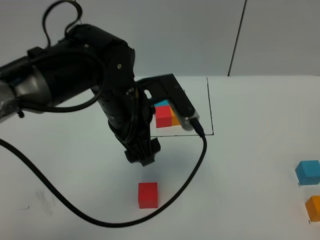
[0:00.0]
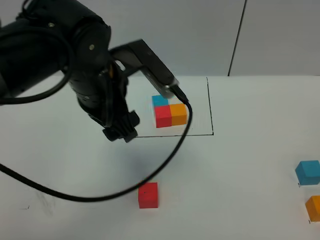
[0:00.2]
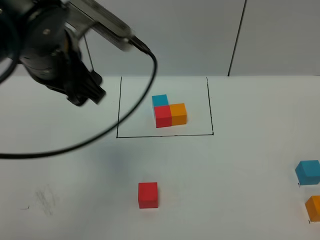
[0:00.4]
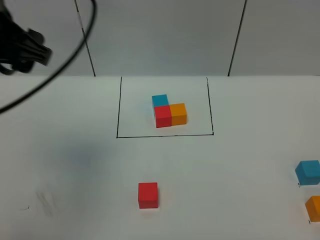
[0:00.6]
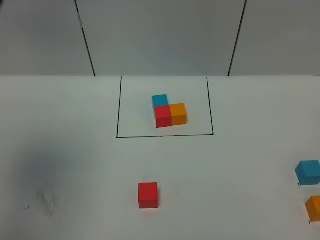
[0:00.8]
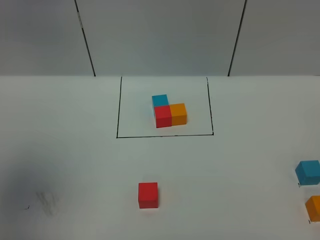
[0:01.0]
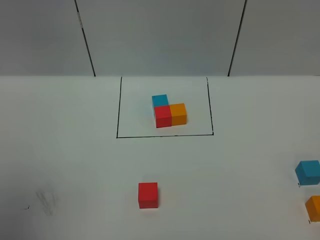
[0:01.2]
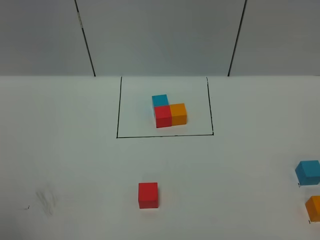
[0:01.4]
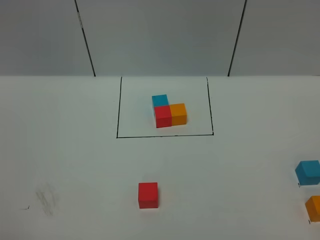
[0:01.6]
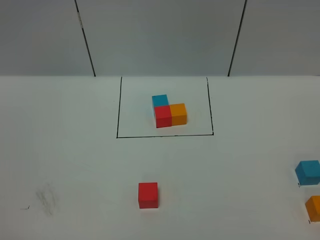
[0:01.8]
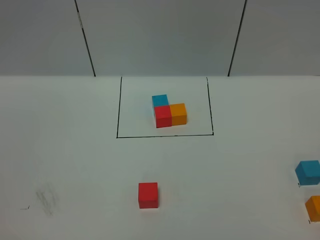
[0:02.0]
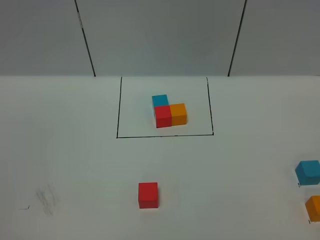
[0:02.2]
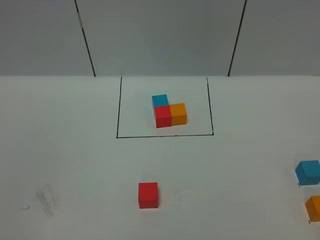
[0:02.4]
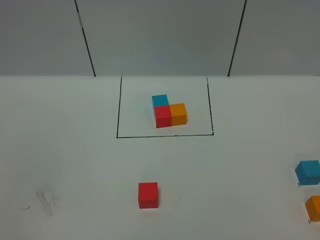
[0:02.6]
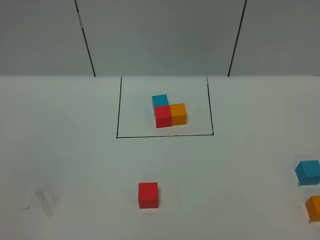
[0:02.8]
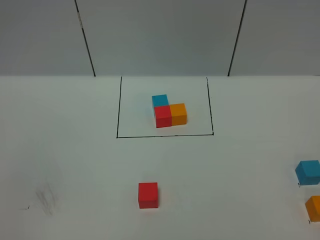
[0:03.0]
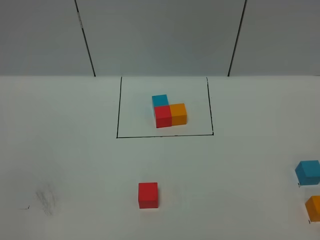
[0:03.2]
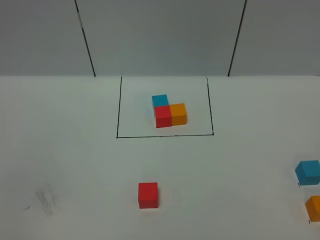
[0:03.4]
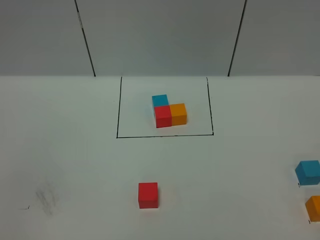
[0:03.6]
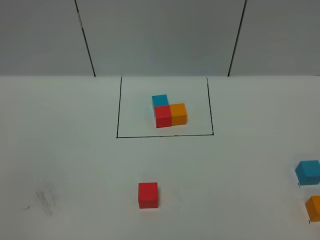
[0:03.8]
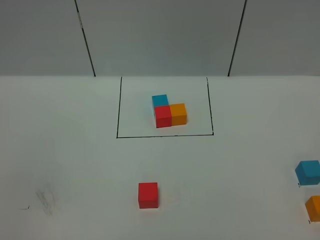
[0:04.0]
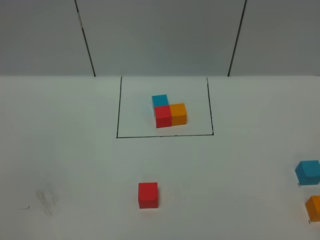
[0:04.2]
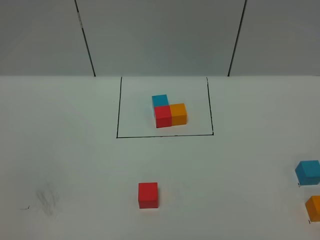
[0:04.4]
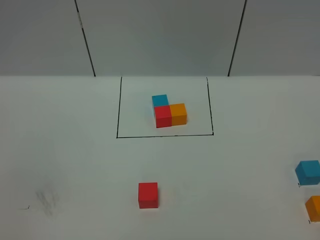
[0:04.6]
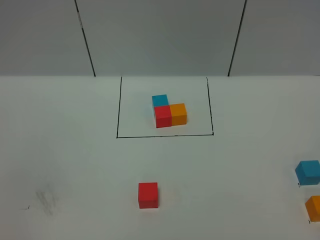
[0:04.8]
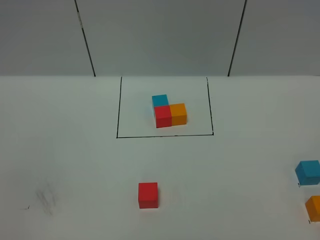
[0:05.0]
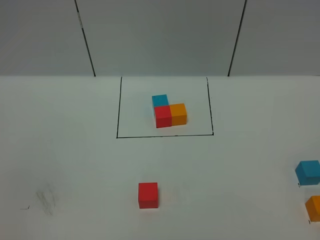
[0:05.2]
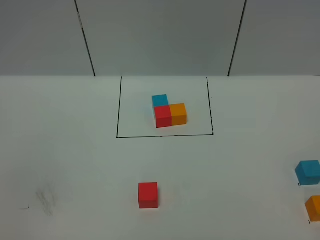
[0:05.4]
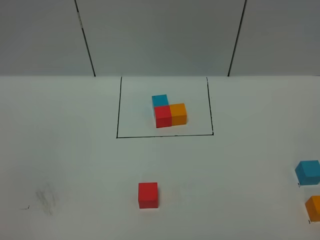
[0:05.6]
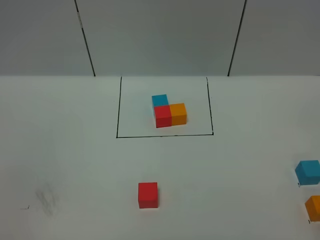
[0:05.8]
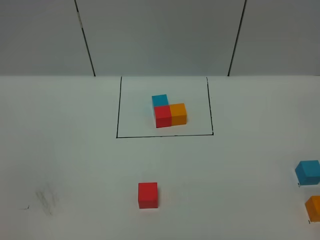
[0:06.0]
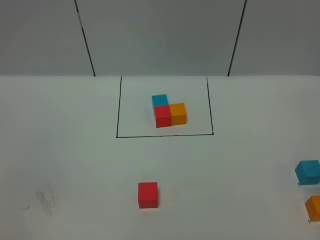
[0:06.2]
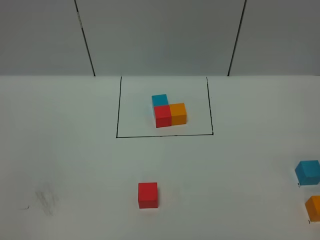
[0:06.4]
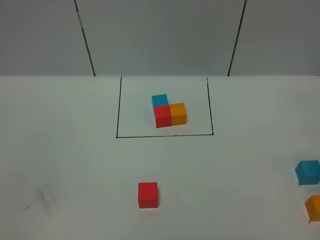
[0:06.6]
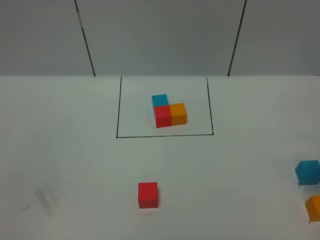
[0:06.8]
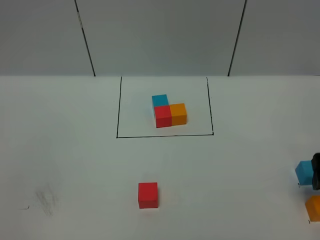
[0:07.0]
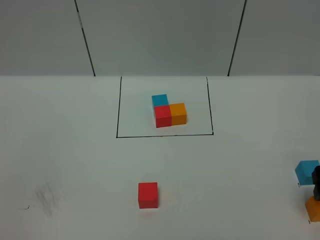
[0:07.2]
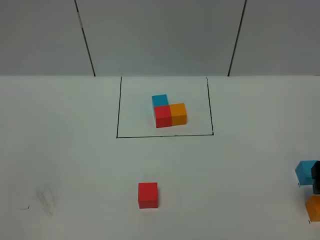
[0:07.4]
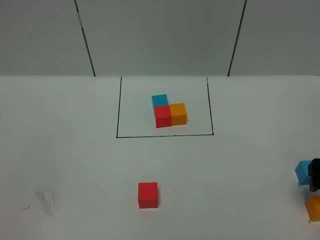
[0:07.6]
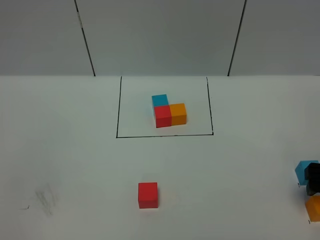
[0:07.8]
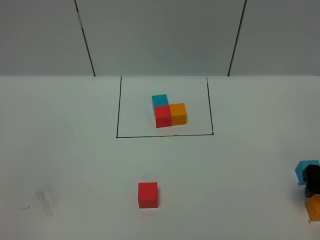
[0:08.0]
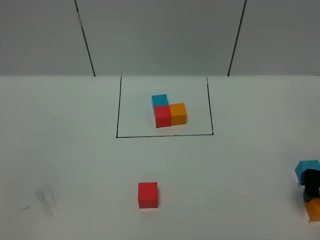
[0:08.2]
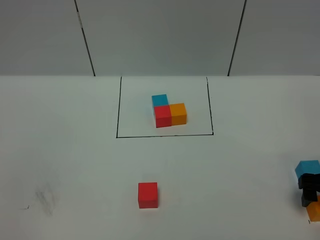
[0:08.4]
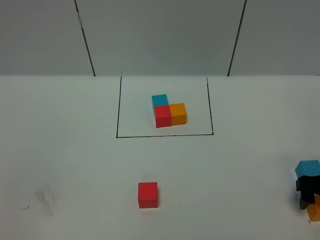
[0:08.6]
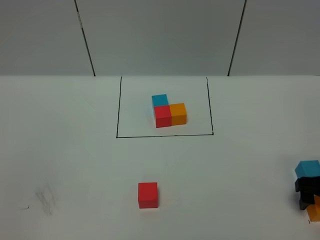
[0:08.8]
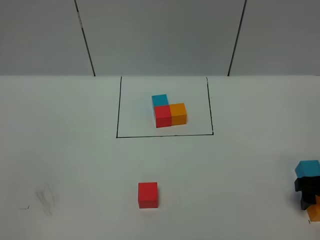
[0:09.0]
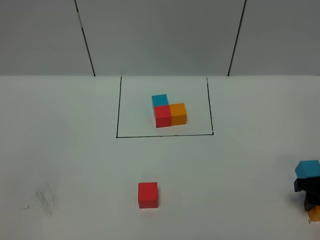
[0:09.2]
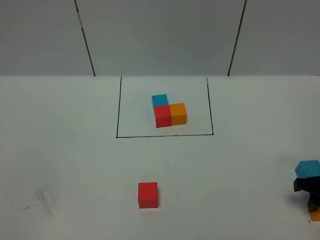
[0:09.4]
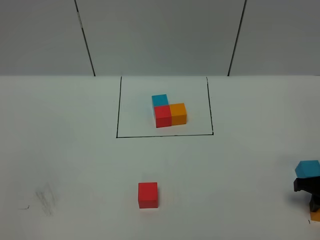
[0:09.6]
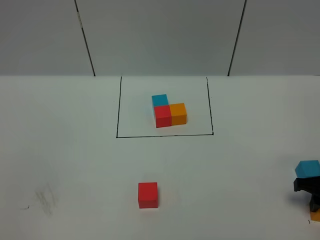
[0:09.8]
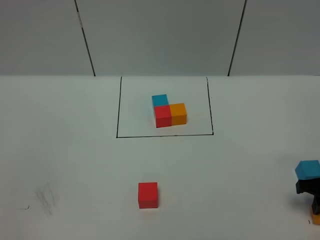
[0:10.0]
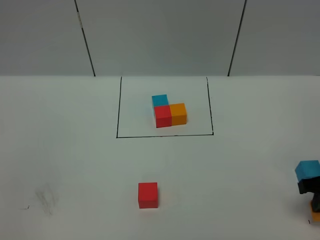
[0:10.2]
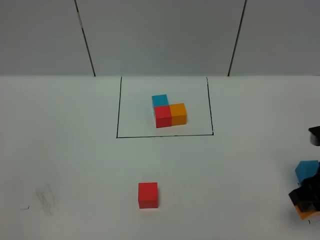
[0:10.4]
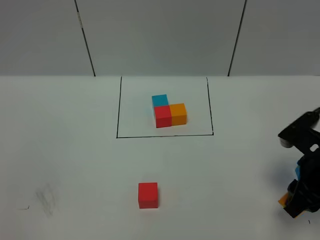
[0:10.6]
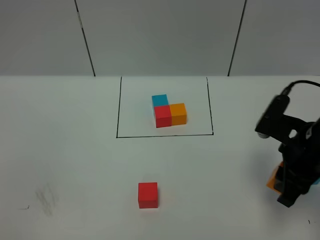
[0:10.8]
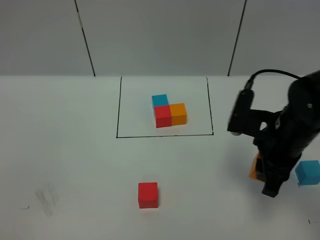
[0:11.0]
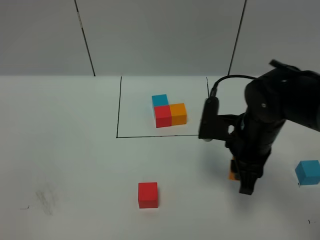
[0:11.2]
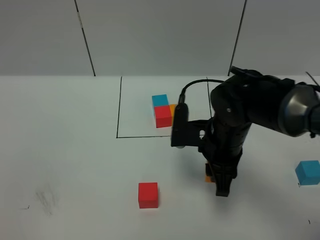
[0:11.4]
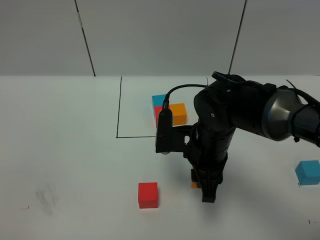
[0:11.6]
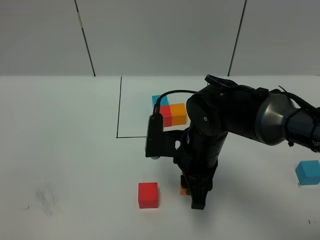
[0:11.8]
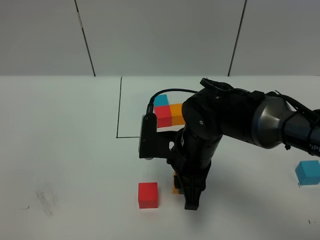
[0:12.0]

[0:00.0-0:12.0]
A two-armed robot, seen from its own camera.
Task of the whole recording: According to the building block template in front, assemble the scattered blocks together.
0:00.0 to 0:01.6: The left gripper goes roughly 50 cm backward, upward and to the left.
0:03.0 to 0:04.4: Neither gripper changes place.
0:06.0 to 0:07.6: The right gripper moves downward and forward, about 15 cm.
0:07.6 to 0:09.0: The right gripper goes some 5 cm downward.
0:09.0 to 0:10.4: The right gripper moves upward, about 5 cm, and closes up.
0:10.4 to 0:12.0: The right gripper heads to the left, covering some 25 cm.

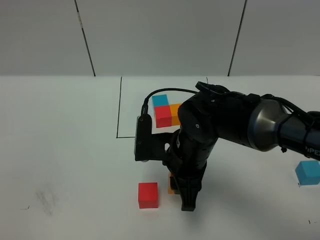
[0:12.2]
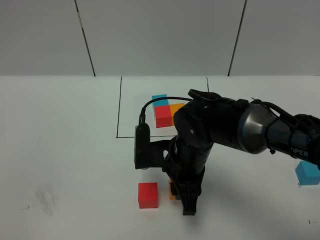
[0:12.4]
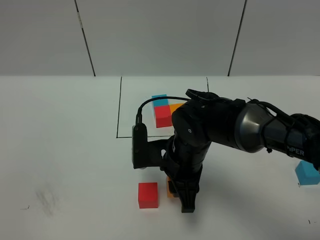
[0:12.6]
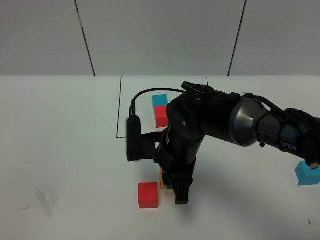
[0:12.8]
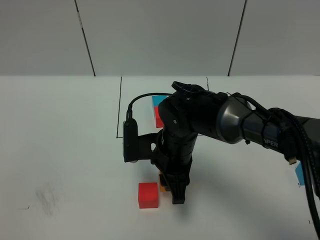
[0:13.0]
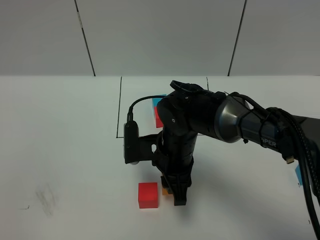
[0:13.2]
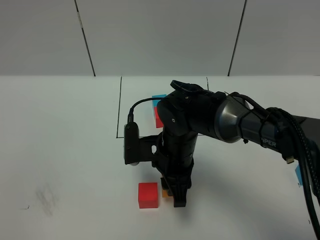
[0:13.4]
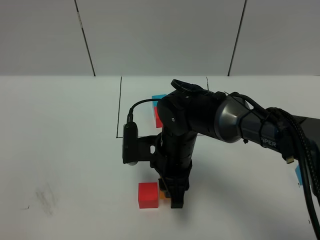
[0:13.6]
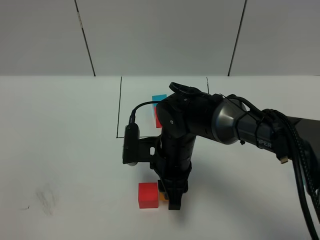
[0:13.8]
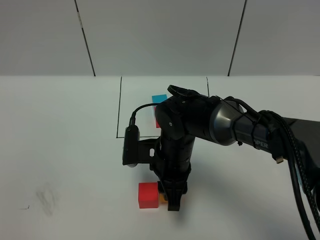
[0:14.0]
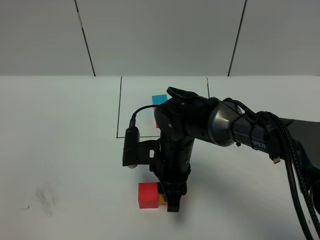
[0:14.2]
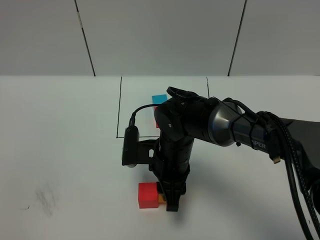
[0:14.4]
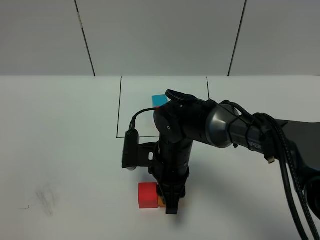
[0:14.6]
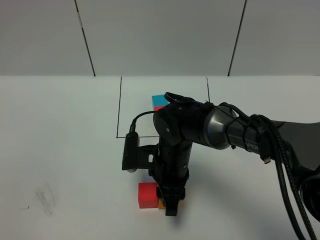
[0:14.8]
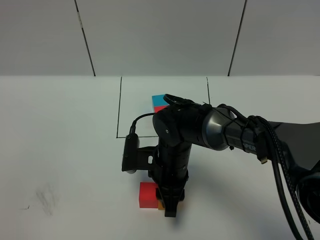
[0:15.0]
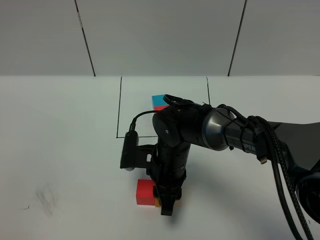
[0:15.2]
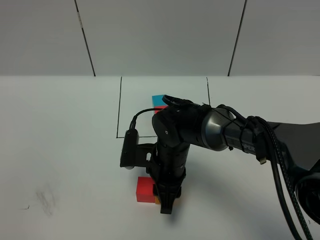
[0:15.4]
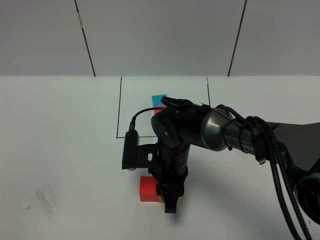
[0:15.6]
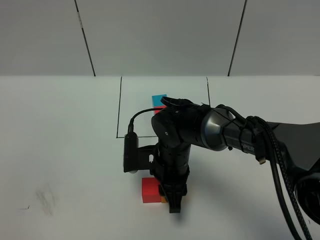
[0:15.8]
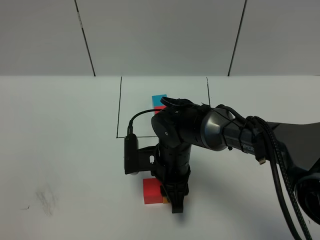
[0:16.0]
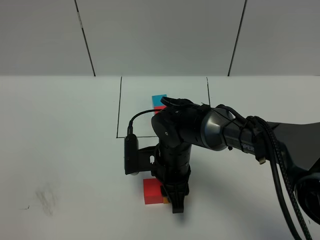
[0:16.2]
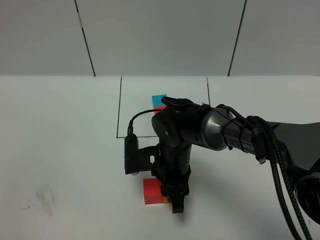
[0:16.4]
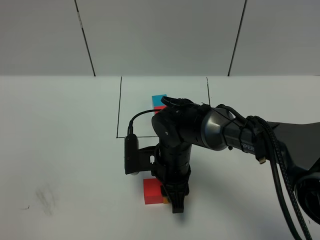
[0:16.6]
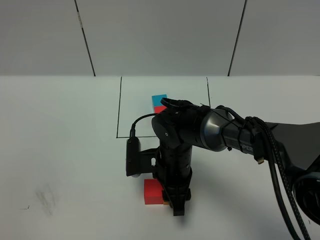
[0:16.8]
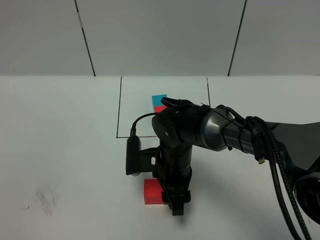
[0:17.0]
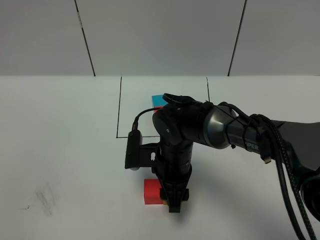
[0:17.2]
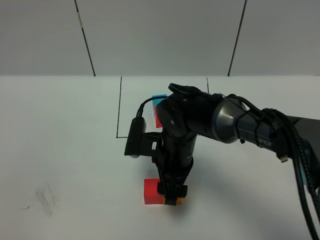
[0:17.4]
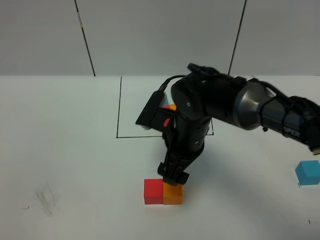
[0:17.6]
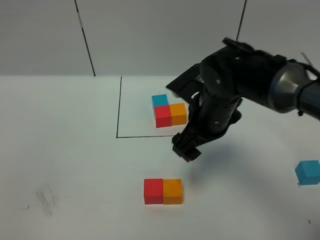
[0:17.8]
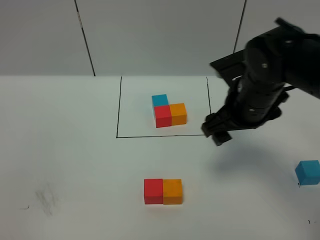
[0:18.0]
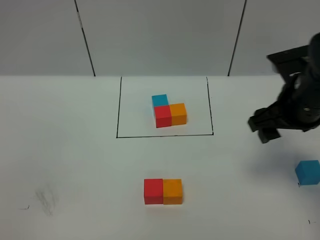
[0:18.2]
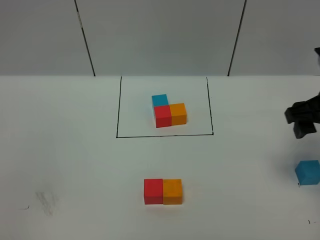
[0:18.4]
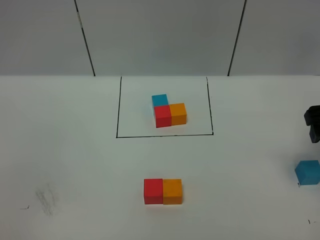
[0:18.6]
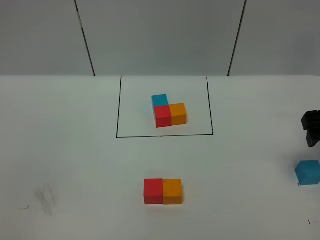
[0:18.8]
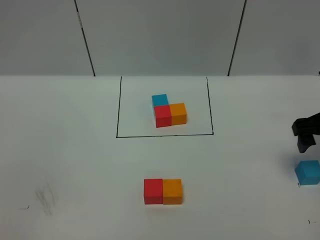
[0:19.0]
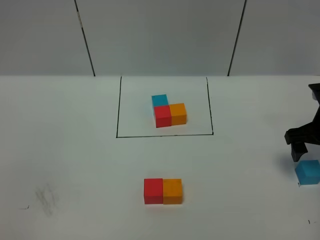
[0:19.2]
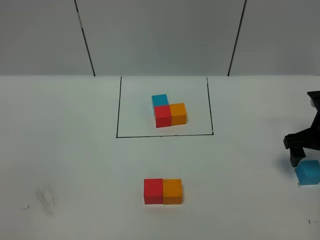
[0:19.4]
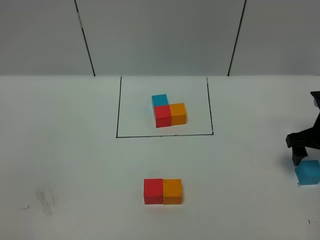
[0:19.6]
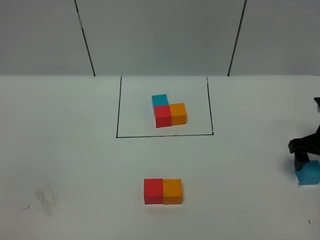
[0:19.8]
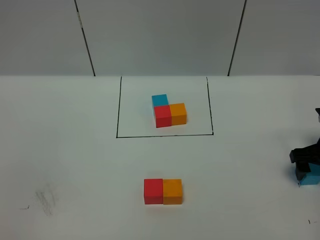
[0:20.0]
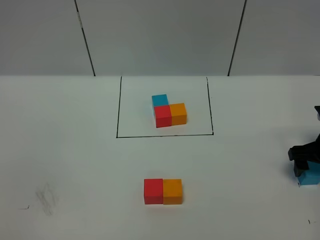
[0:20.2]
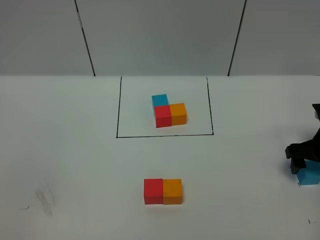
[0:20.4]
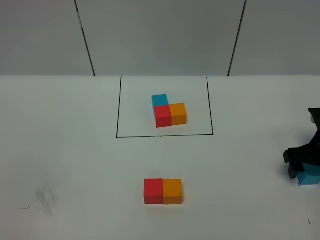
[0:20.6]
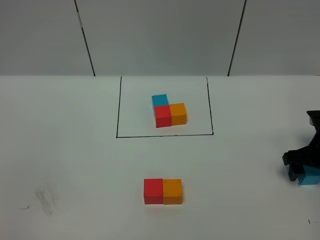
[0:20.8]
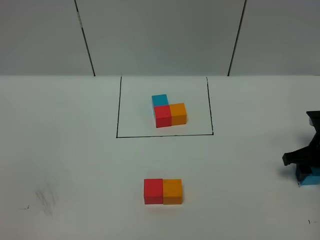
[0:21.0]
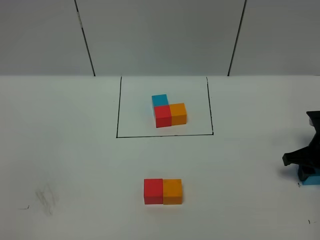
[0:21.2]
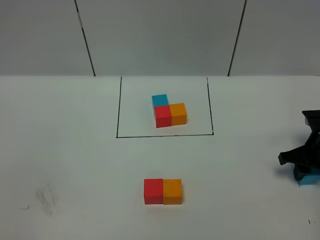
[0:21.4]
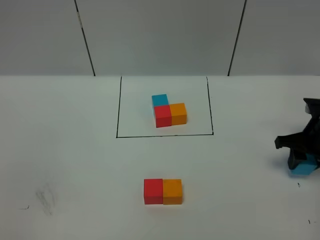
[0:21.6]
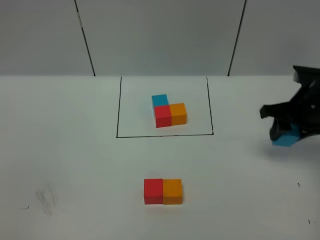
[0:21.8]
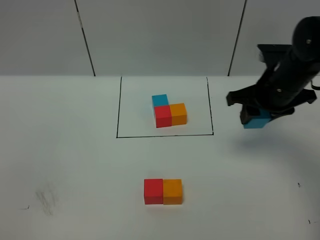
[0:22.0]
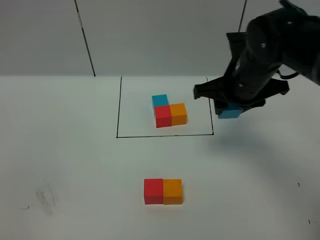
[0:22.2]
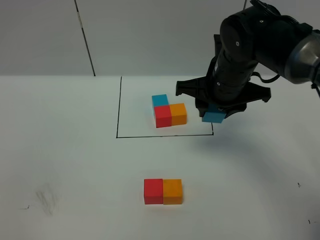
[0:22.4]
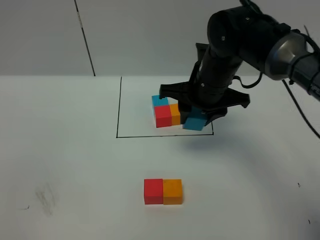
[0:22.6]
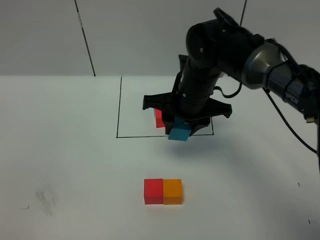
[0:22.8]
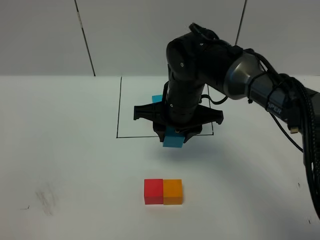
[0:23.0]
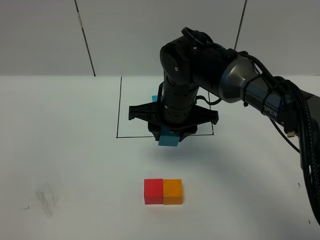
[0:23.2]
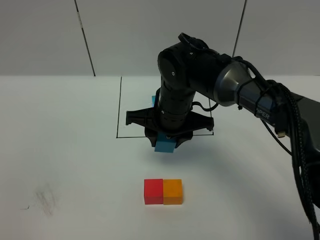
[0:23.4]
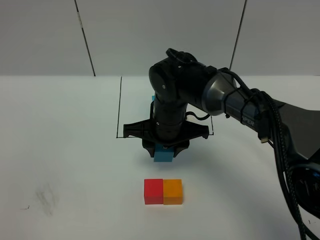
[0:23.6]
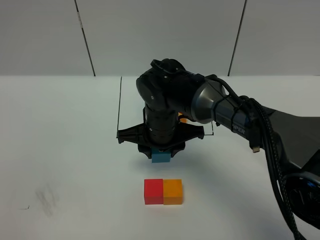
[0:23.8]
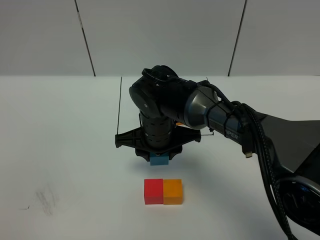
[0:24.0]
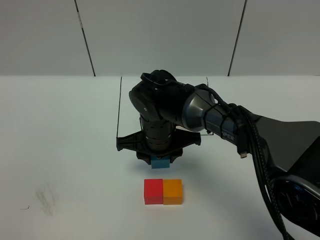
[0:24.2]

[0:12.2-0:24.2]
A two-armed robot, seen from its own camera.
Task of the whole recording: According to the building block template in front, assemble the scattered blocks together.
Step, 0:12.2 to 0:17.4: Put the orange cube on the right of the red cube.
0:12.2 to 0:13.8: There are only small adjustments of the grippers.
0:13.8 to 0:16.6: The grippers make only small movements.
0:16.6 to 0:18.2: The right gripper is displaced to the right and upward by approximately 25 cm, and opens its fingers.
0:18.2 to 0:19.8: The right gripper heads downward and to the right, covering some 15 cm.
0:19.8 to 0:21.2: The right gripper closes its fingers.
0:21.2 to 0:22.6: The right gripper shifts about 30 cm to the left and upward.
0:22.6 to 0:24.2: The right gripper shifts approximately 15 cm to the left and downward.
